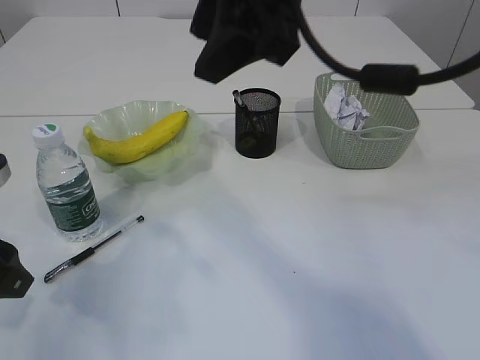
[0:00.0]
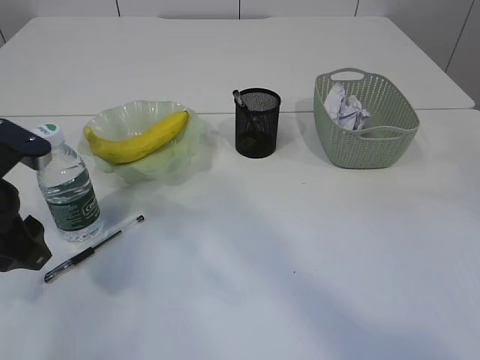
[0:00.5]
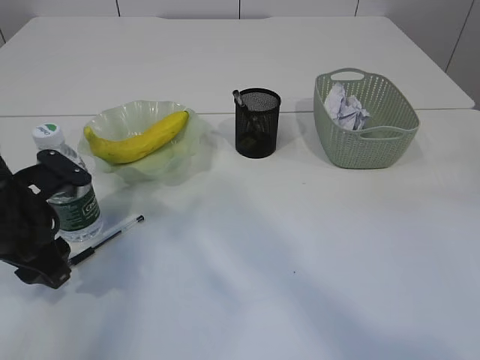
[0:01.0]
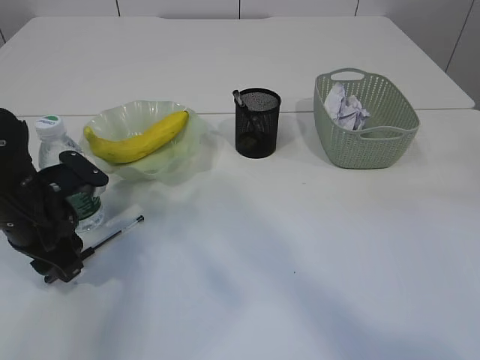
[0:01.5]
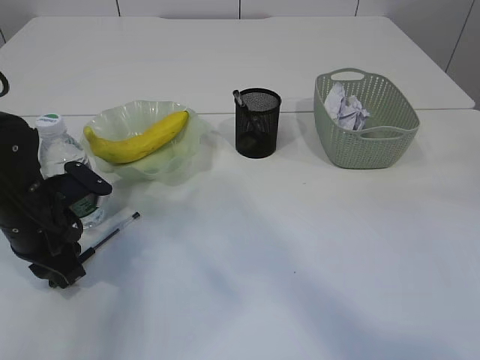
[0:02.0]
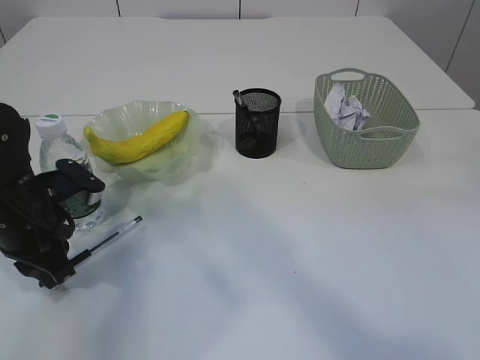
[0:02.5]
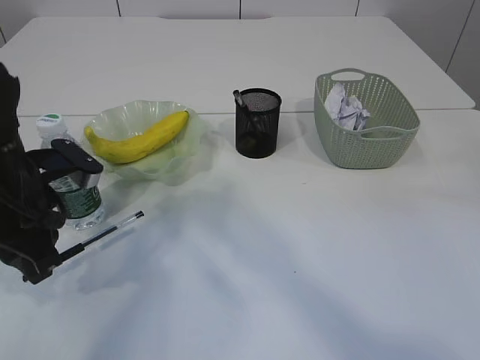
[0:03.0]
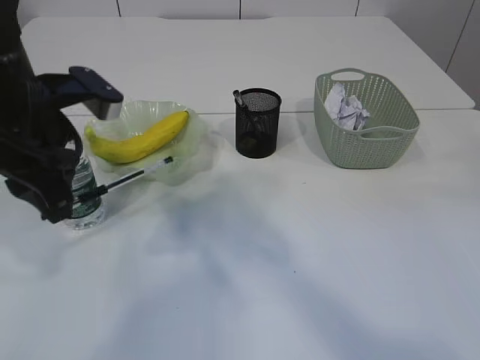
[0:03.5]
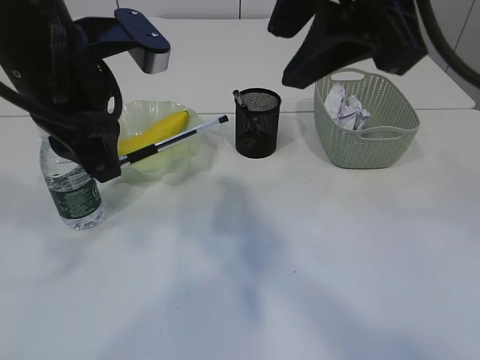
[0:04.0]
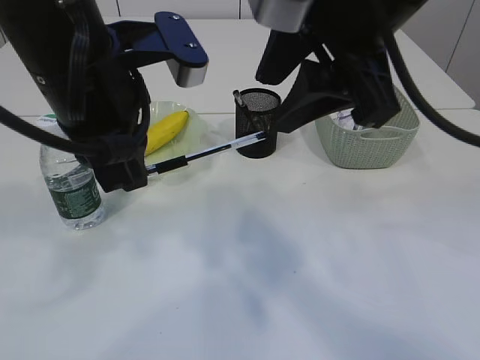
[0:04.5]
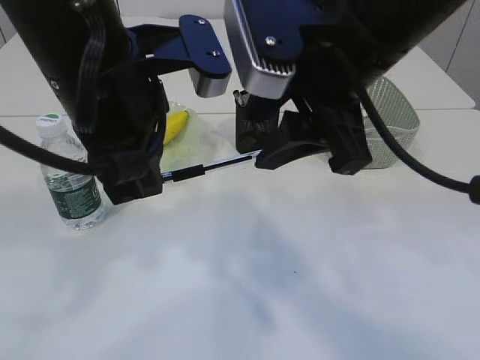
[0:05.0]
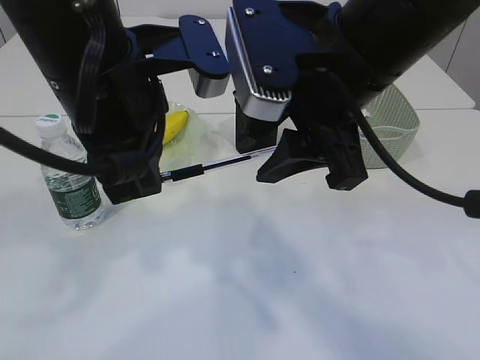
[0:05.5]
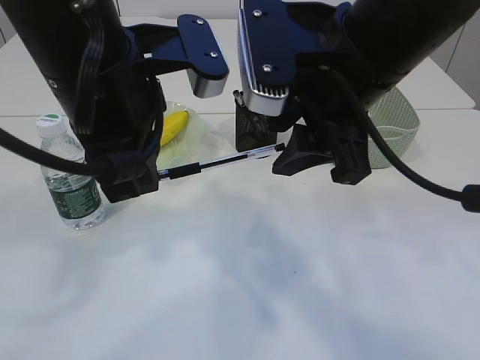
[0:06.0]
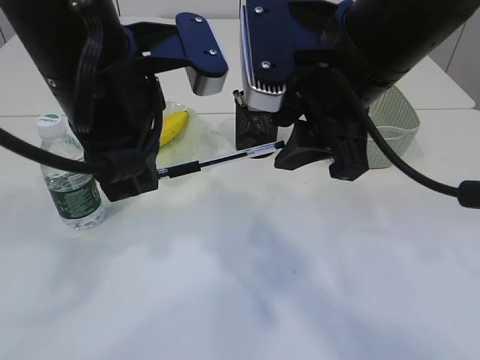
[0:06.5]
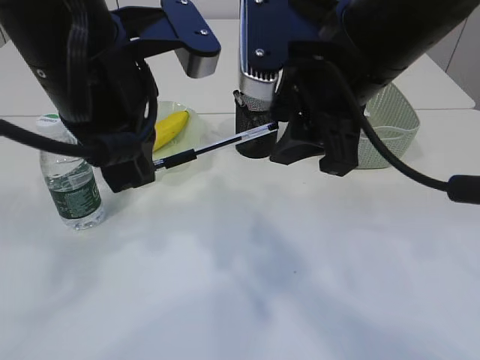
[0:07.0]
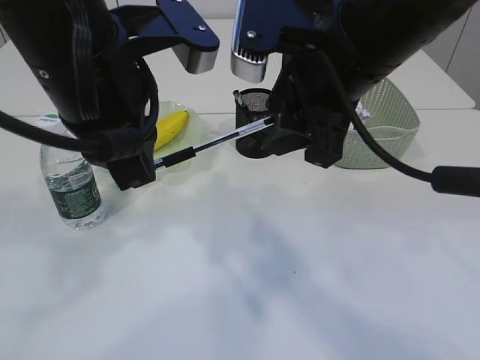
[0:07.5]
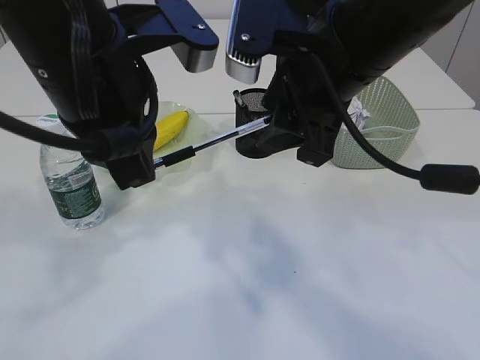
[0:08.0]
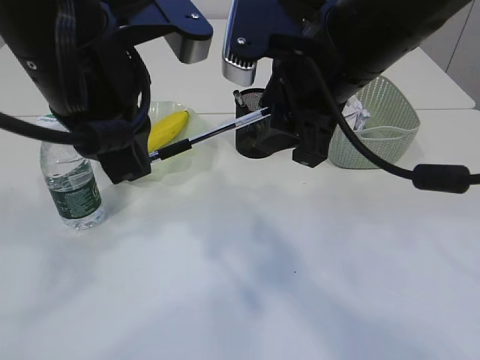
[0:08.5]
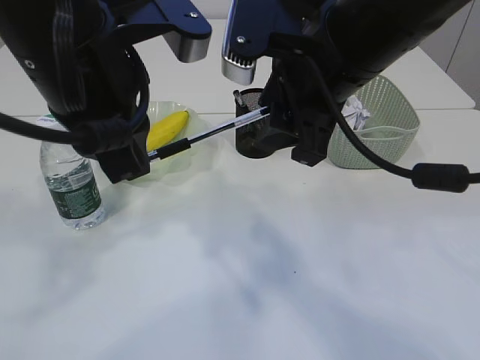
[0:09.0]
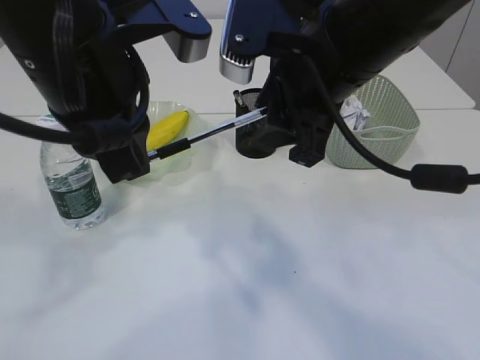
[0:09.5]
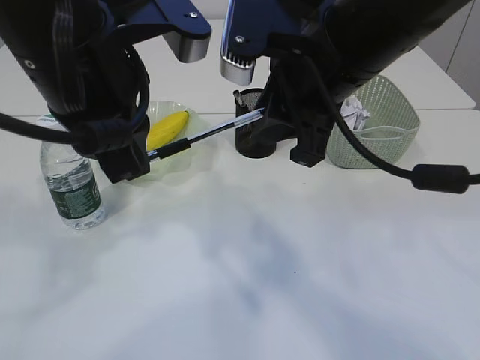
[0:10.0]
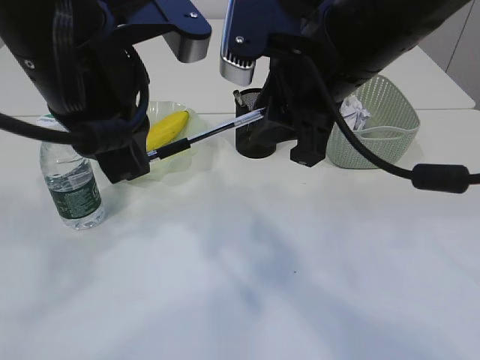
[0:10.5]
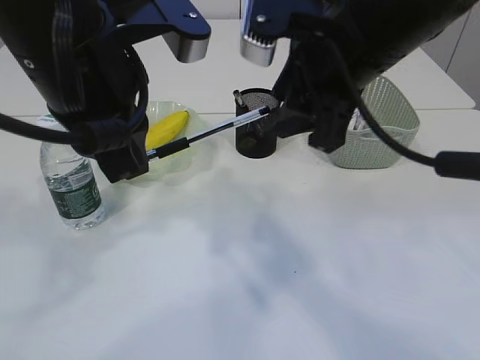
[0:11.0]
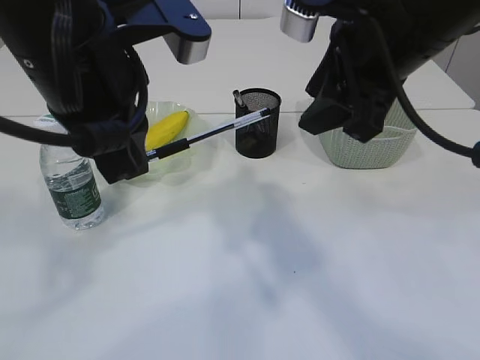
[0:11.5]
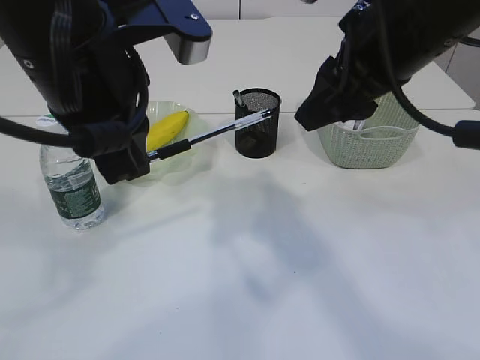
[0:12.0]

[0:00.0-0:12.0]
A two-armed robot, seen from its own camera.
Step, 0.0 to 3.0 s: Pick up the pen with left arm.
0.0 to 2.0 s: The left gripper heads forward and downward, covering about 15 cm, while the right gripper travels upward by roughly 5 cm.
2.0 to 4.0 s: The right gripper heads downward, covering some 5 cm. Meanwhile the left gripper heads upward and to the right, covering roughly 20 cm.
4.0 to 6.0 s: The left gripper shifts by about 5 cm. The right gripper travels downward by about 10 cm.
6.0 to 8.0 s: The grippers move only a little.
8.0 to 10.0 s: Both grippers stay about where they are.
10.0 to 12.0 s: The right gripper shifts by roughly 5 cm.

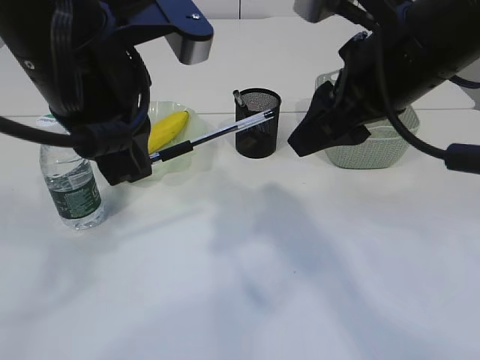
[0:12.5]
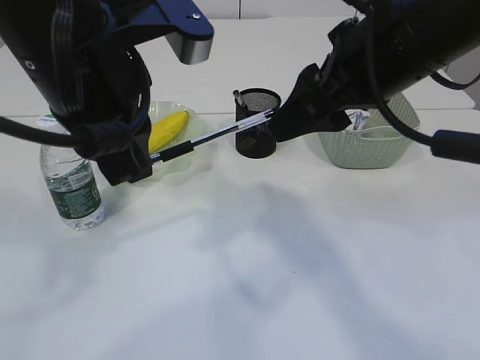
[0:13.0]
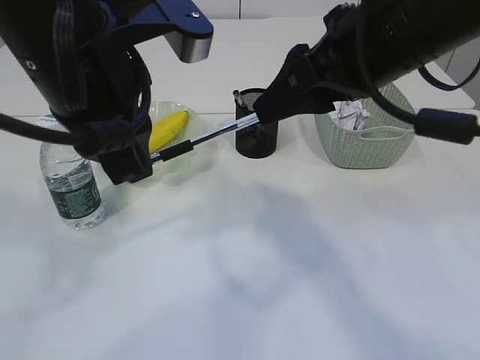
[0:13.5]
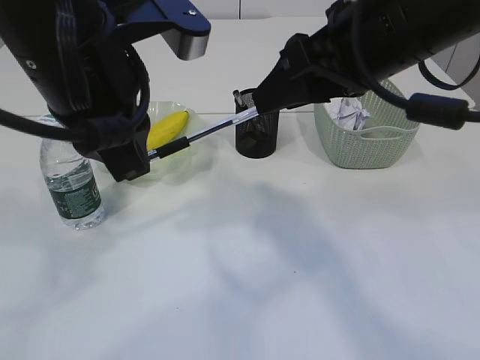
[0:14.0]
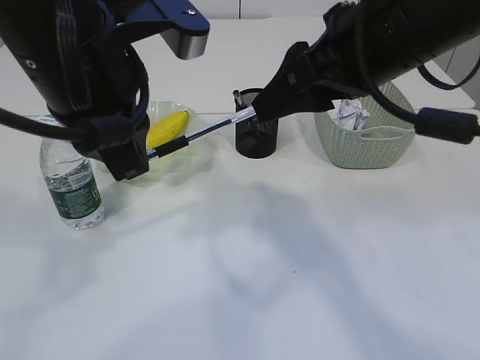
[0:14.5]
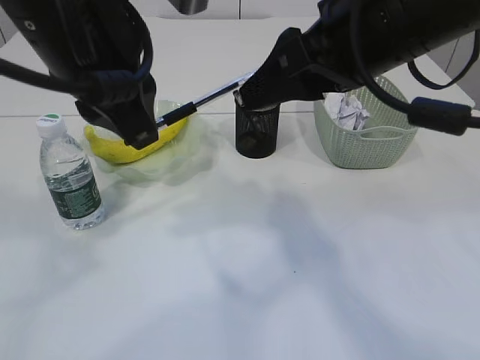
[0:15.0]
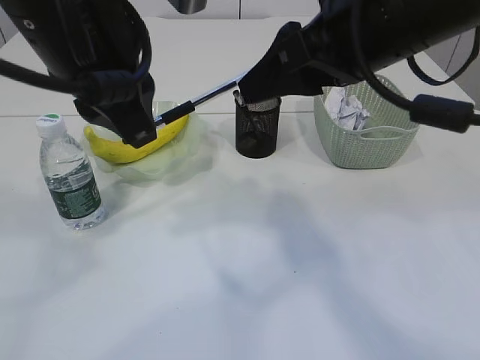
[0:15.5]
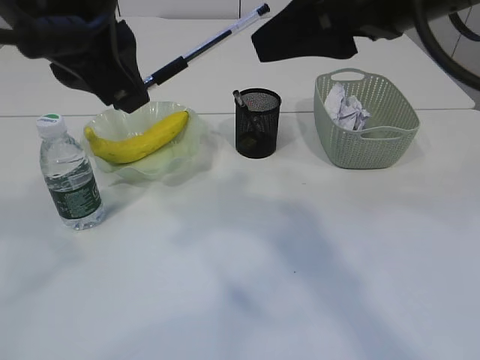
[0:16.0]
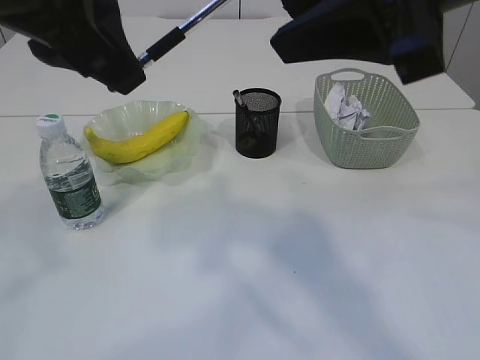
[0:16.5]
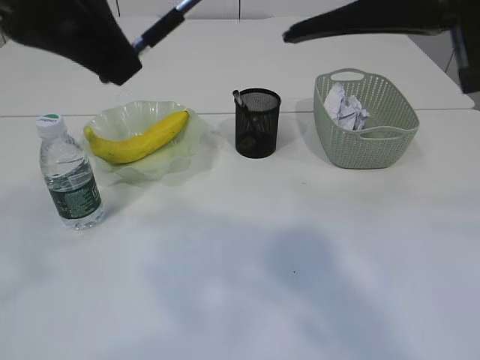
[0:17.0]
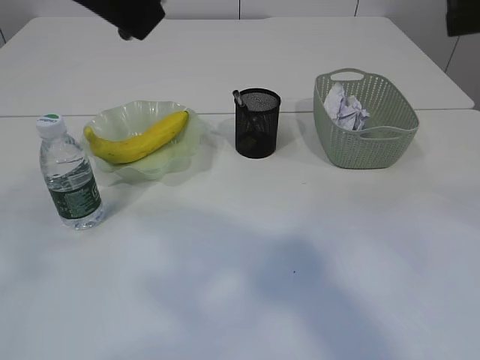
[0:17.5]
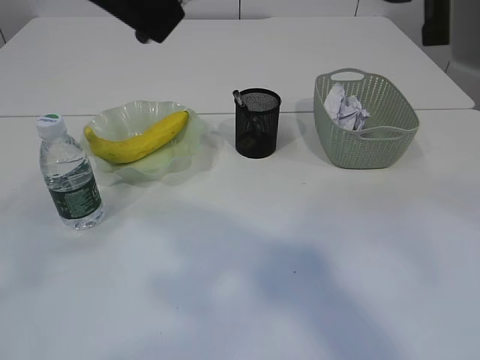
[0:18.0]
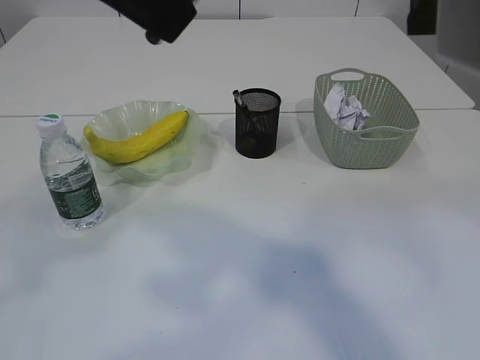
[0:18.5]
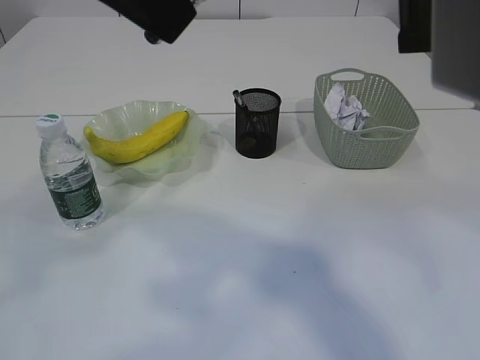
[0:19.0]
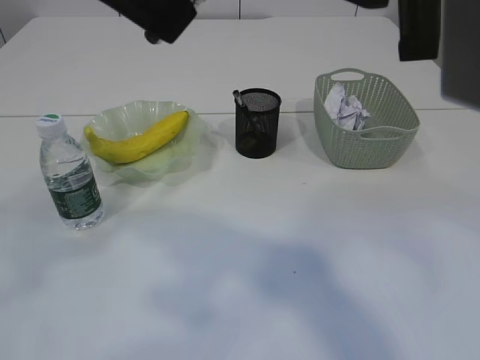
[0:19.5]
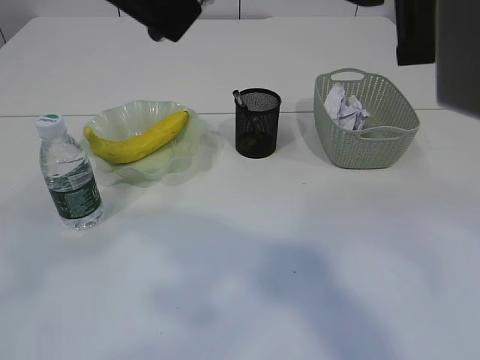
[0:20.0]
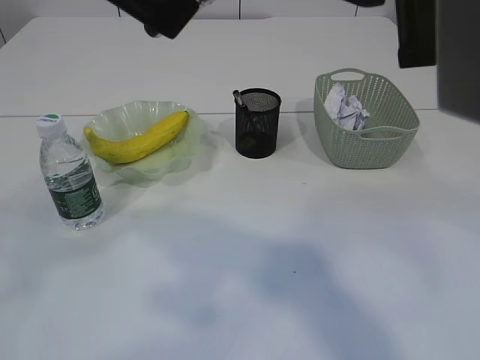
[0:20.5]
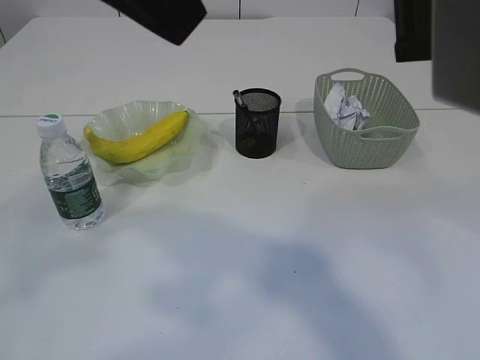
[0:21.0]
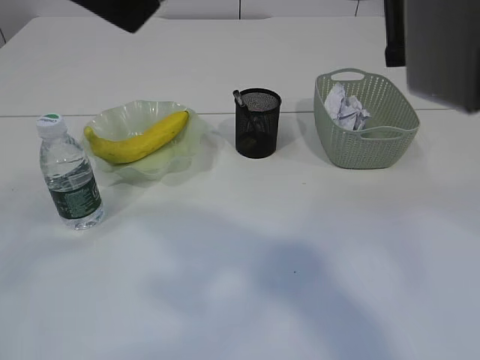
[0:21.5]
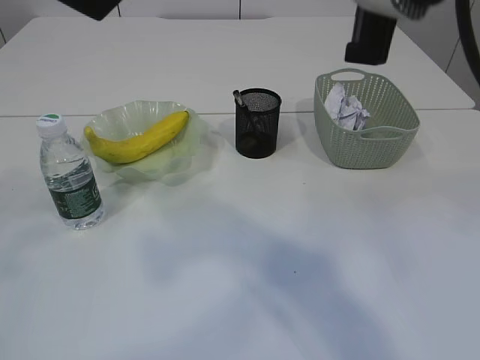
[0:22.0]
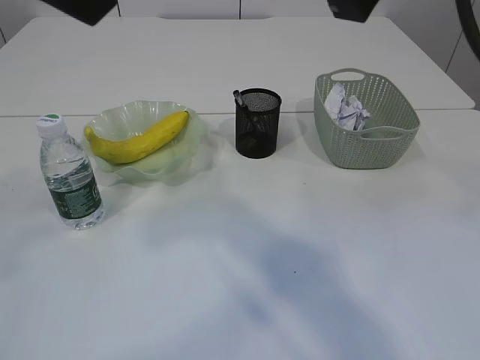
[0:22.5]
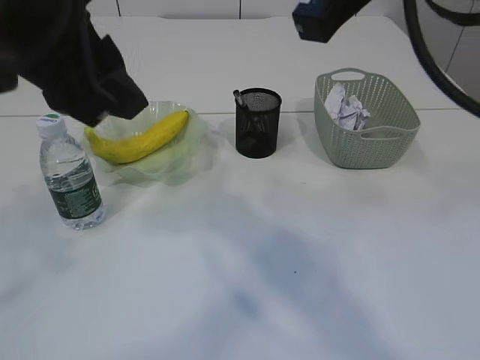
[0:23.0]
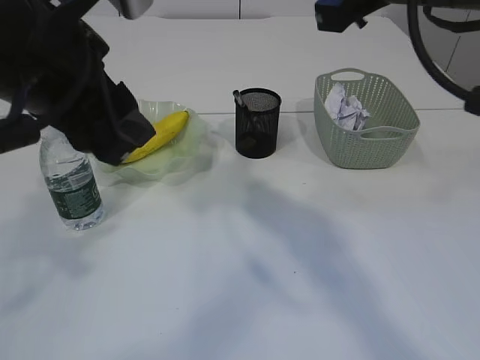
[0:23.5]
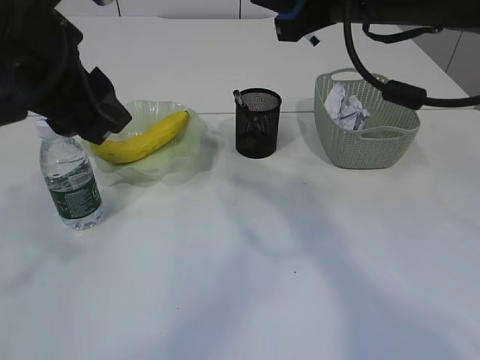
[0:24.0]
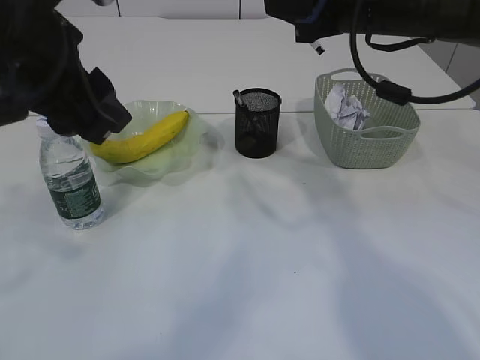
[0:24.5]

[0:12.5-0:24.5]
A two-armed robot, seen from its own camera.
Step, 12.5 to 22.5 s: transfer the pen to the right arm.
14.5 to 16.5 s: The right gripper travels upward and backward by about 10 cm. The left gripper shifts about 5 cm upward.
16.5 to 18.5 s: The right gripper shifts by some 5 cm. Meanwhile the left gripper heads upward, covering about 5 cm.
18.5 to 20.5 s: The right gripper closes up.
20.5 to 22.5 s: The left gripper opens its fingers.
22.5 to 24.5 s: The left gripper is displaced downward by about 10 cm. The right gripper moves forward and downward, about 20 cm.

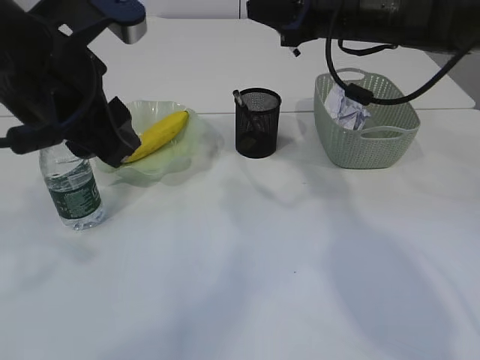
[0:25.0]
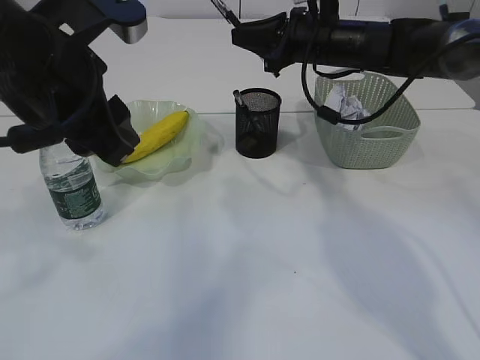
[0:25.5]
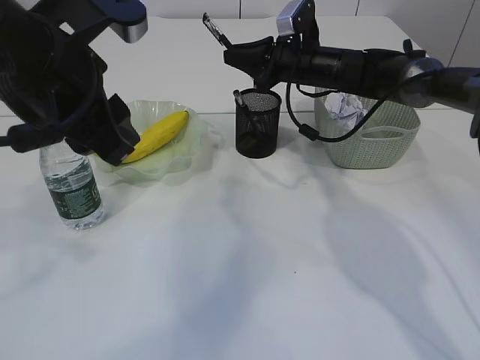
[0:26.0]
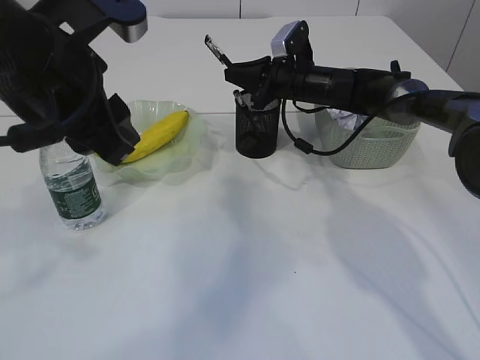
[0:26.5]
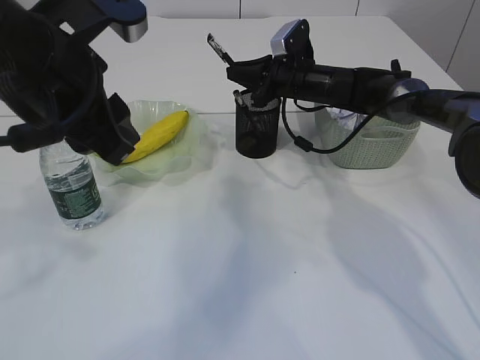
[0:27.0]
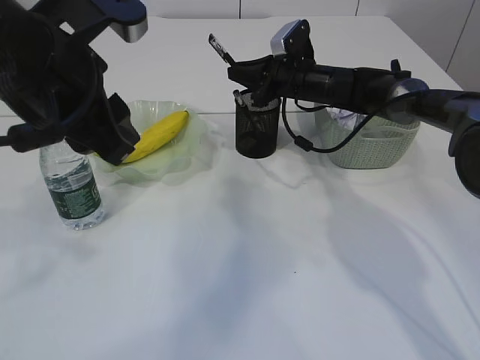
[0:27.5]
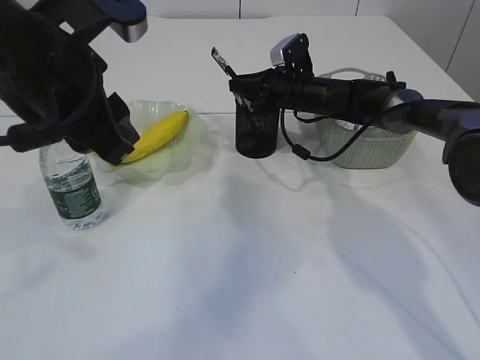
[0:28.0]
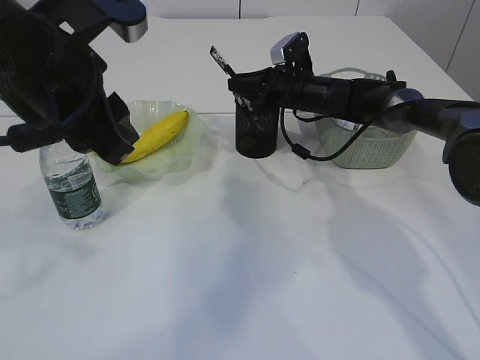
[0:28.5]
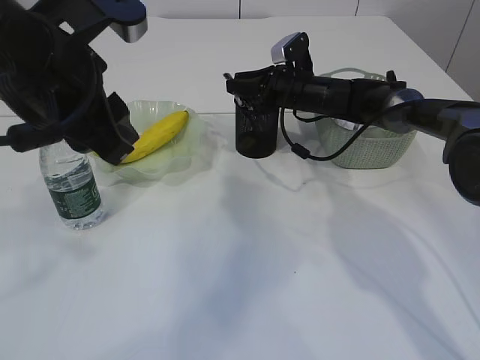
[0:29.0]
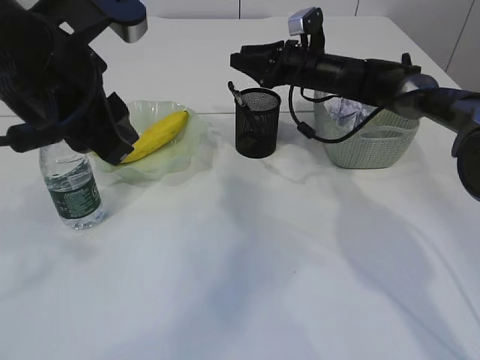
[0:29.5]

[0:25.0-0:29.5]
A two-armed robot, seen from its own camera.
25.0 to 27.0 s: The right gripper moves downward and forward, some 15 cm.
27.0 to 29.5 s: The right gripper opens up.
